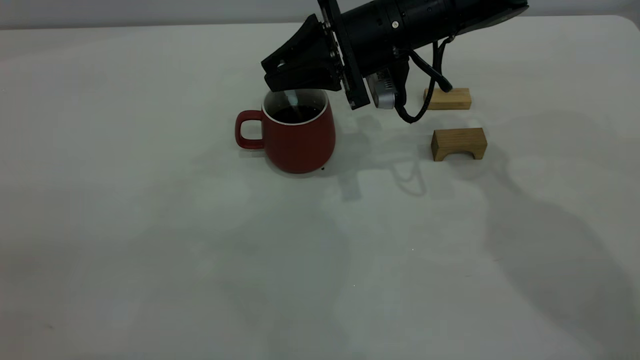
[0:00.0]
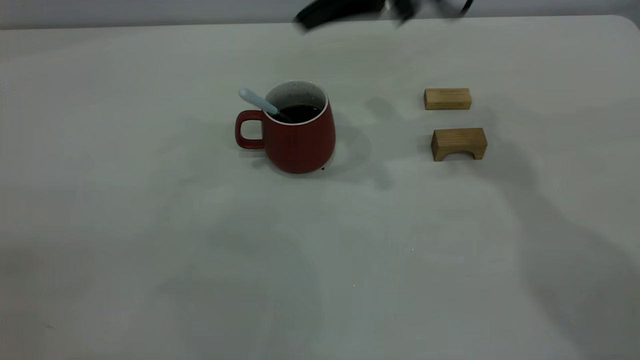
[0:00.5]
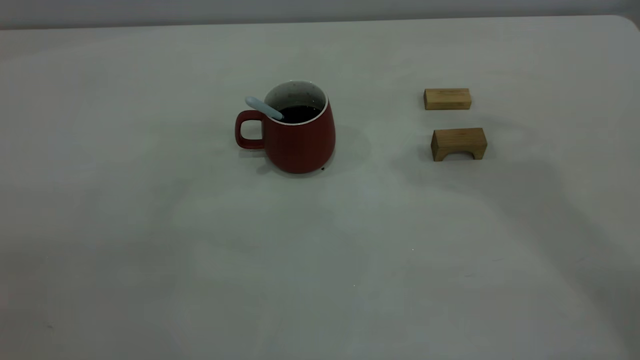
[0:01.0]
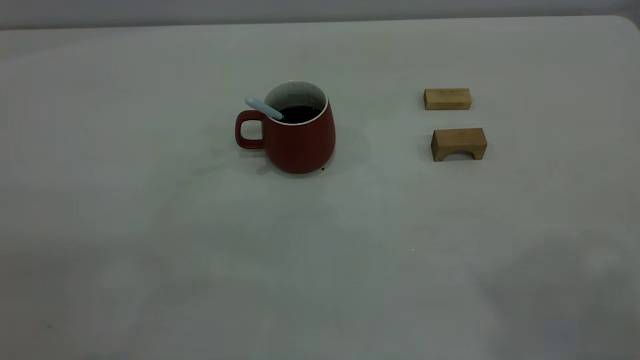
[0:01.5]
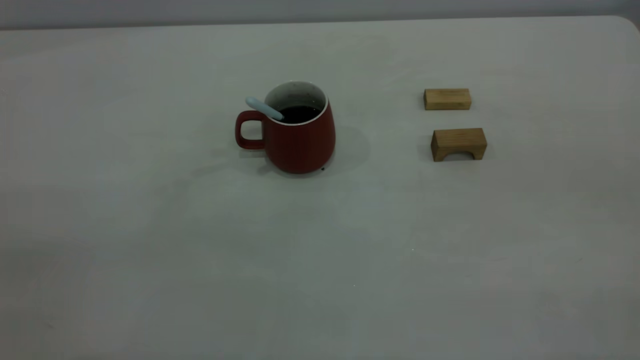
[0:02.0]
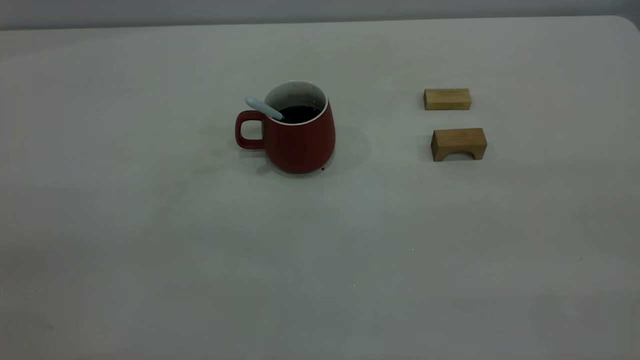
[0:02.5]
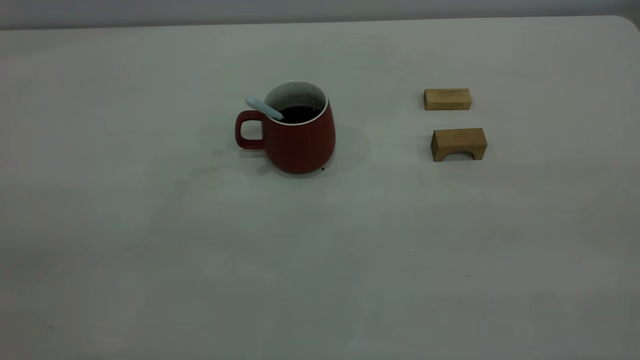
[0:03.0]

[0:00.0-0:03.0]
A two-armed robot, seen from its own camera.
0:00.0 to 0:01.5: The right gripper shifts approximately 50 cm upward and backward, and opens up.
